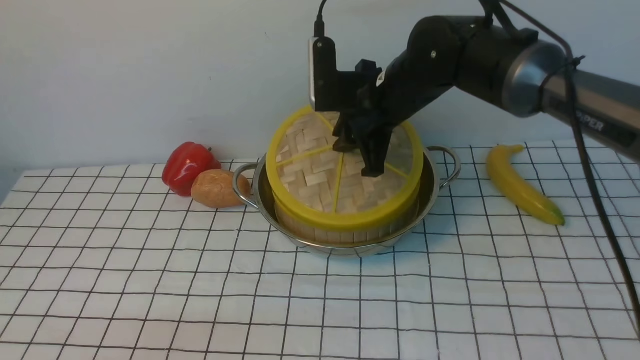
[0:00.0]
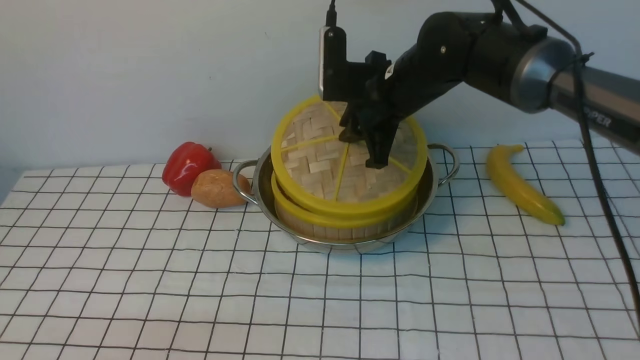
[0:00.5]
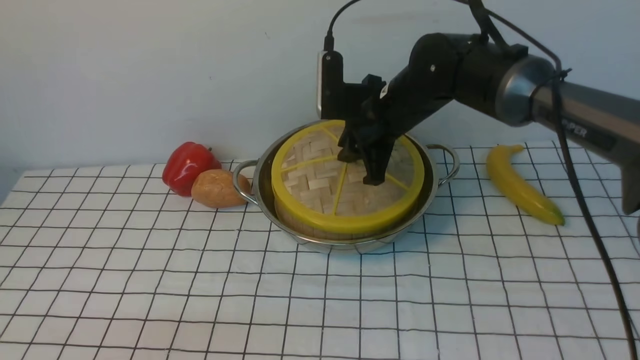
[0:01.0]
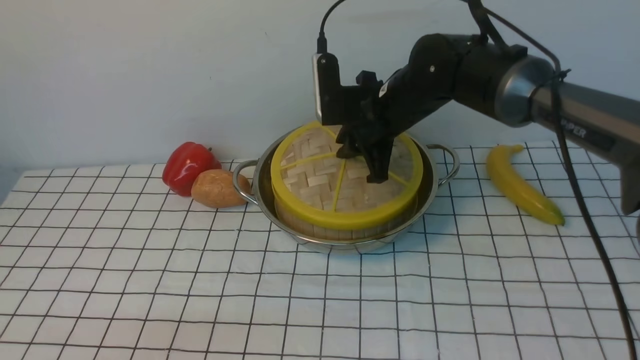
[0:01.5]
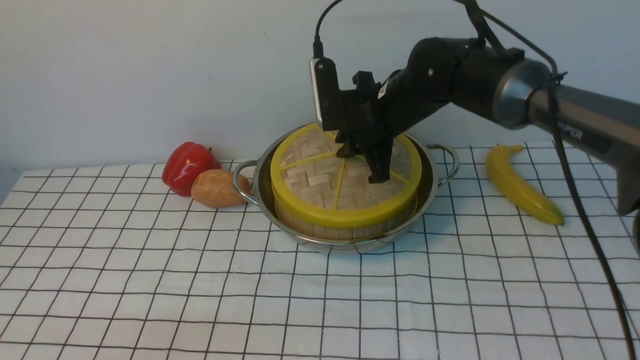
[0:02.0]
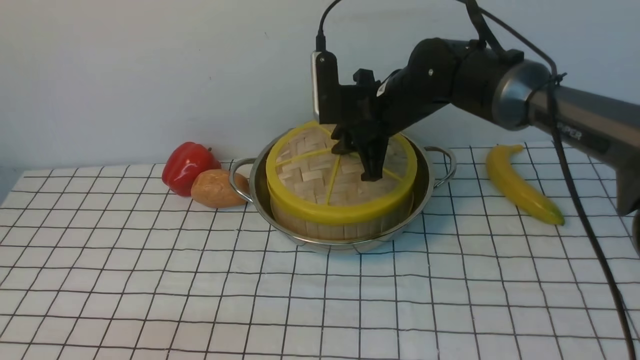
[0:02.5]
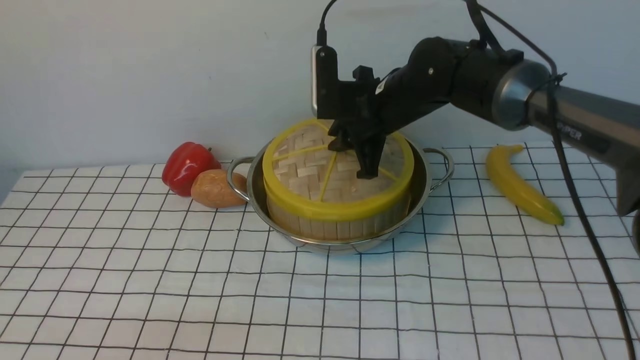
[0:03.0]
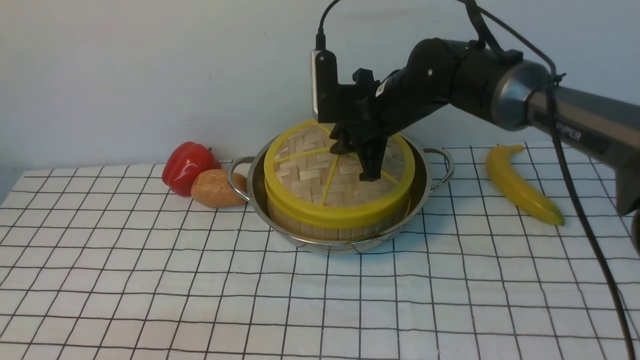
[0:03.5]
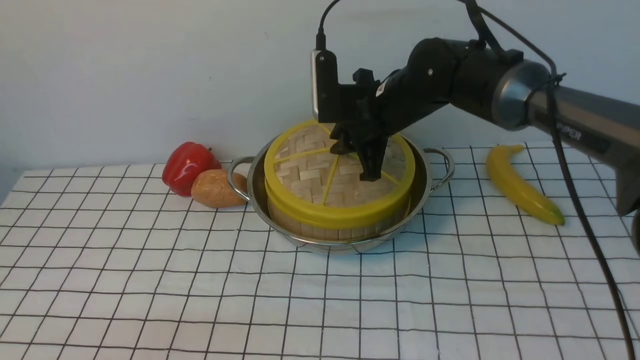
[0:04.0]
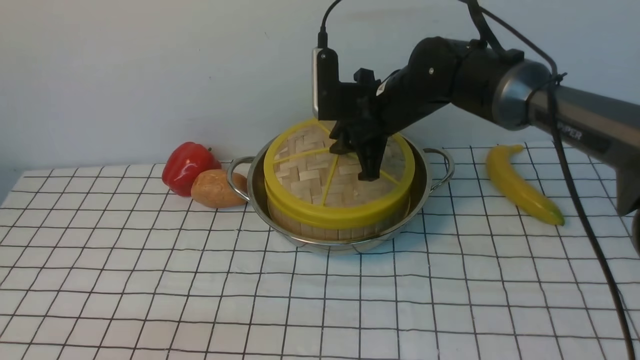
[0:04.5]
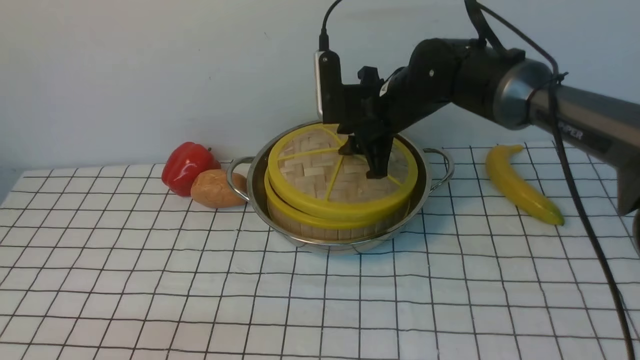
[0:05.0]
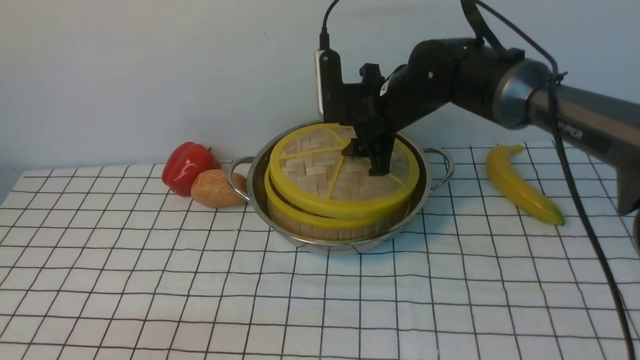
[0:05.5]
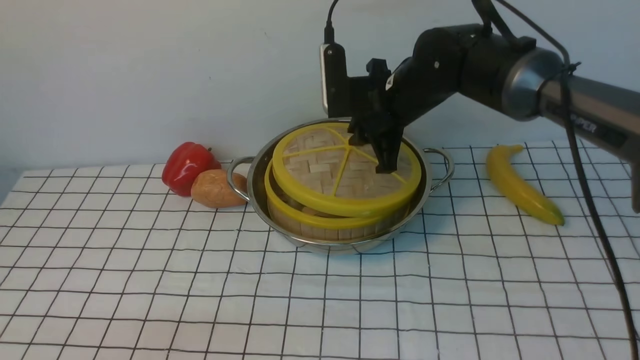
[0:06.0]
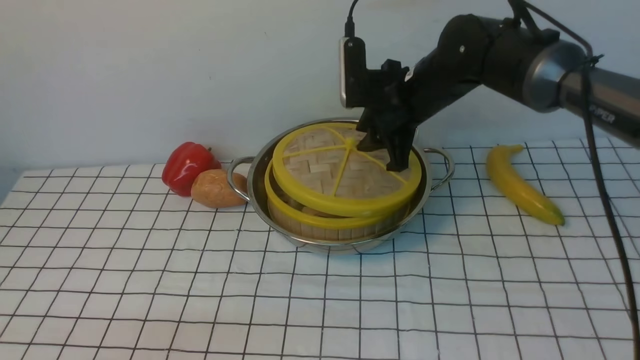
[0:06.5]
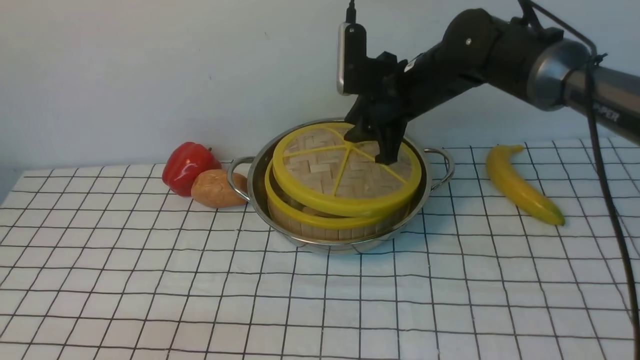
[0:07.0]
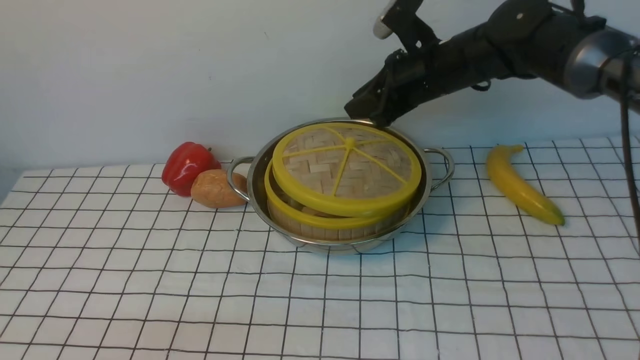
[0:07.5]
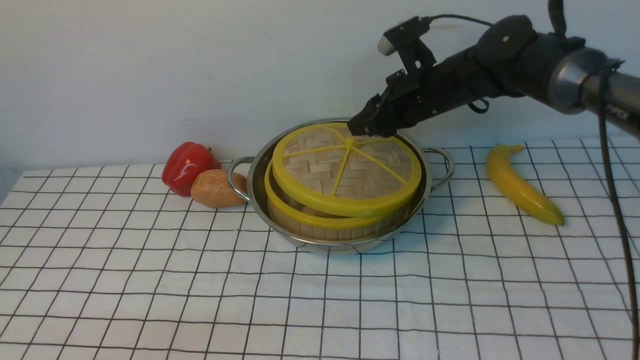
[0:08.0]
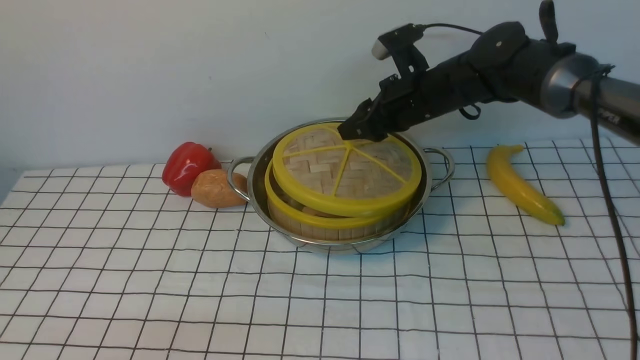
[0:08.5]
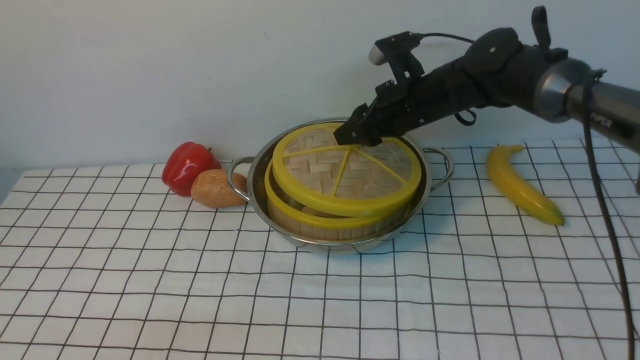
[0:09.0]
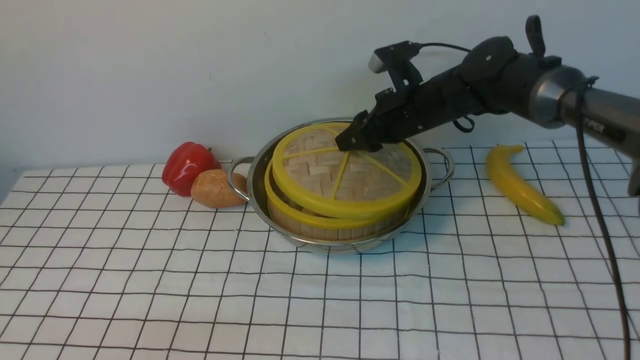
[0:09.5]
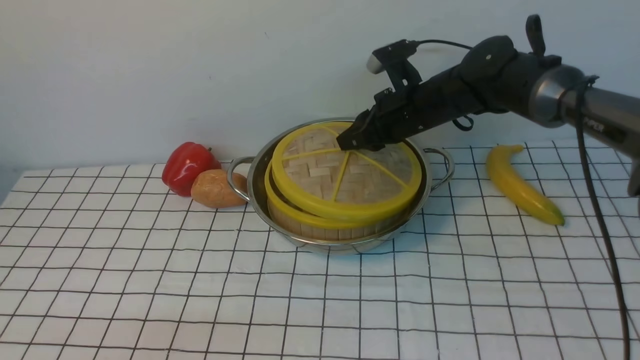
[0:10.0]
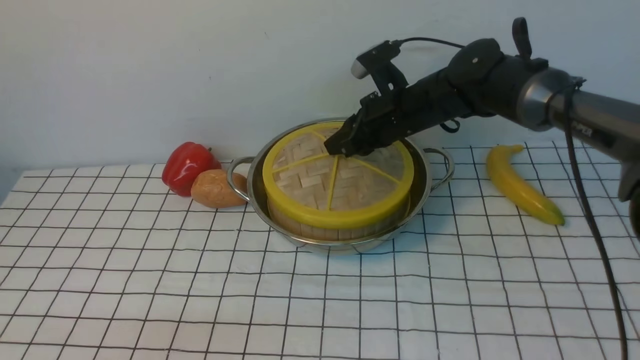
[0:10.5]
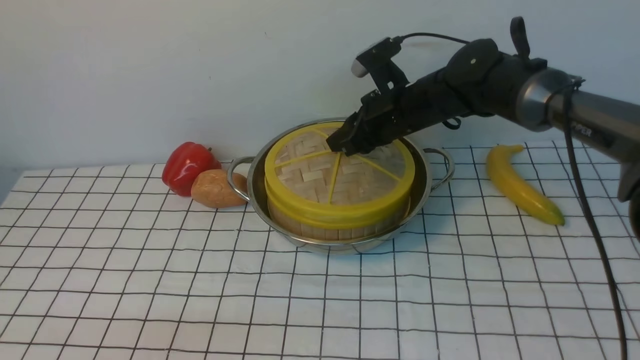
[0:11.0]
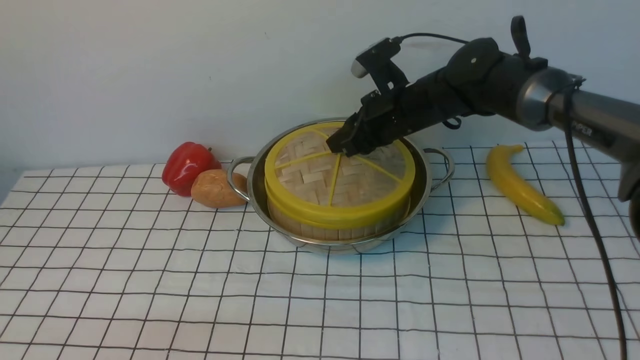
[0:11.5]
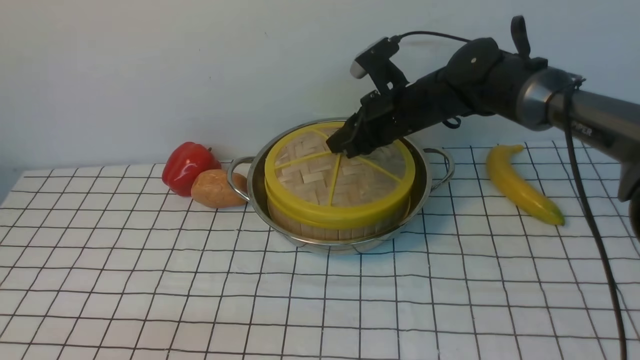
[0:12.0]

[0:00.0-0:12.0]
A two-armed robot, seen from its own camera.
Task of the whole recording: place the steamer in the pot on the white tablecloth, and put the lid on the steamer.
0:00.0 to 0:04.0: The grippers make only small movements.
0:04.0 to 0:06.0: The right gripper opens, then closes once more.
0:08.0 to 0:12.0: There are only small adjustments of the grippers.

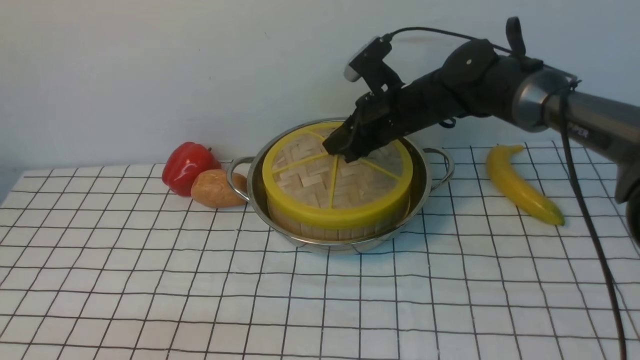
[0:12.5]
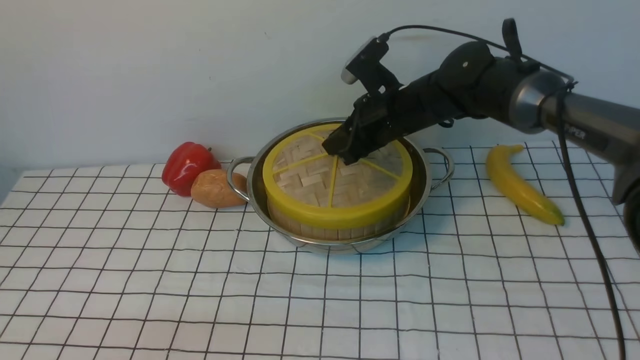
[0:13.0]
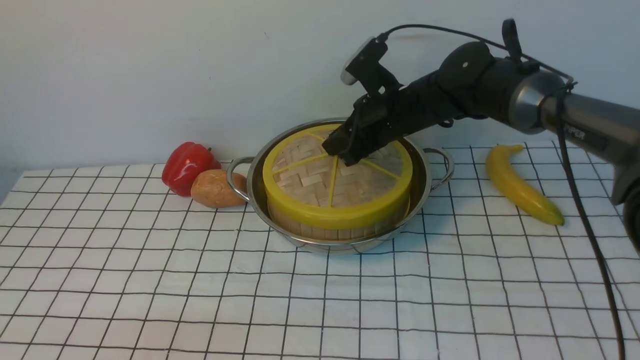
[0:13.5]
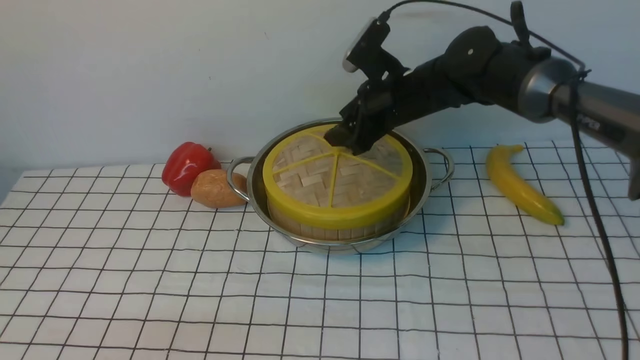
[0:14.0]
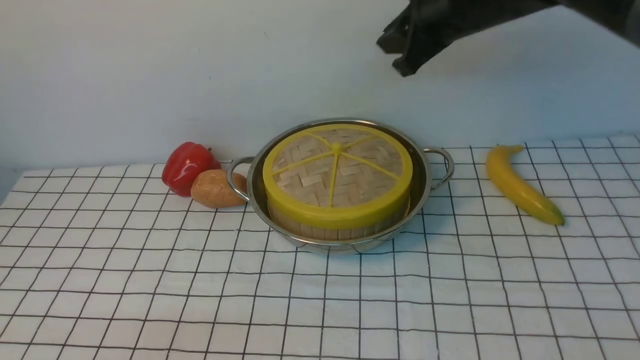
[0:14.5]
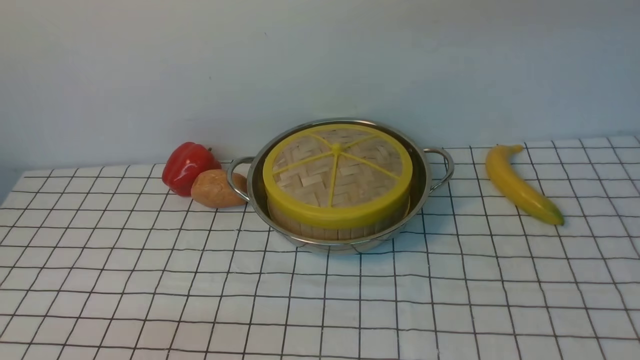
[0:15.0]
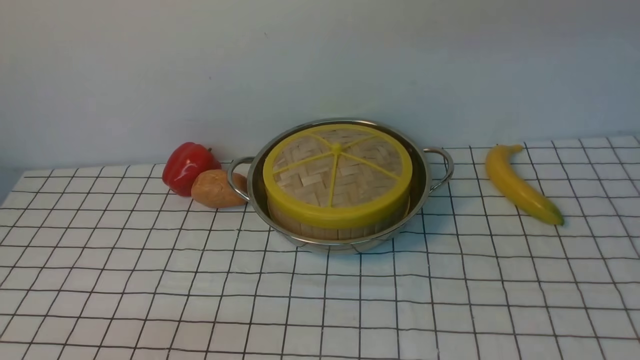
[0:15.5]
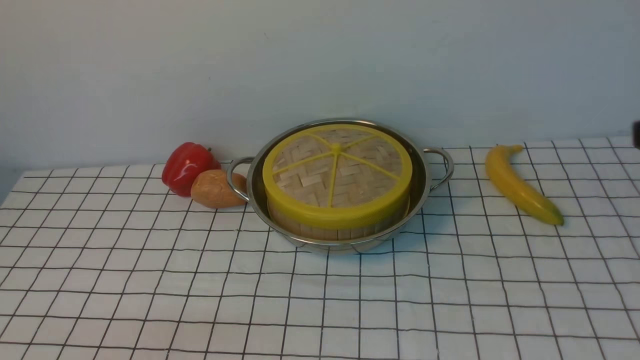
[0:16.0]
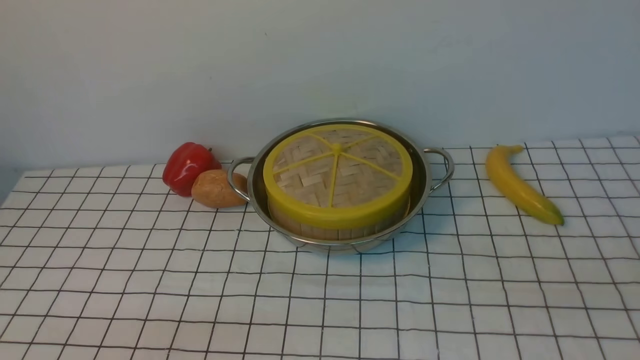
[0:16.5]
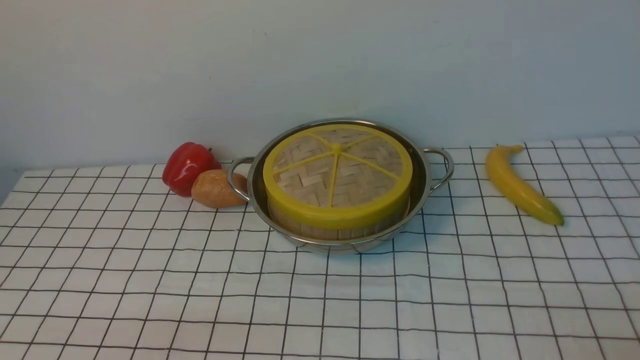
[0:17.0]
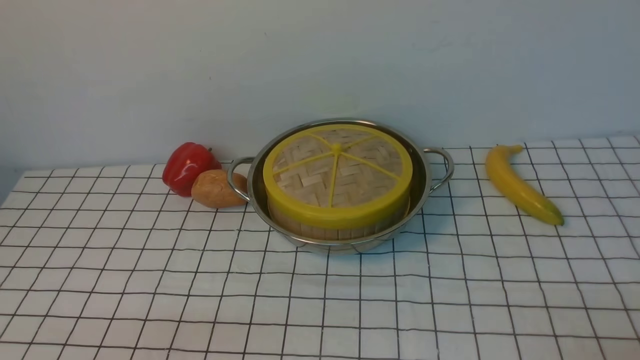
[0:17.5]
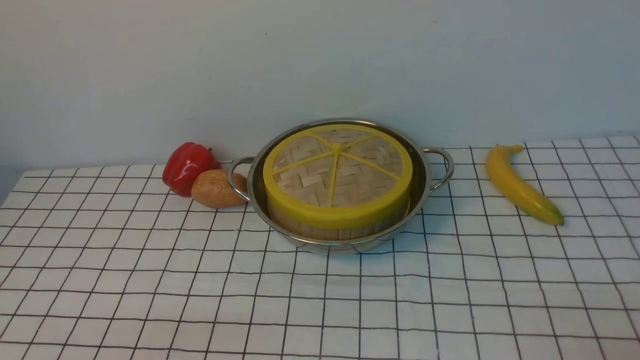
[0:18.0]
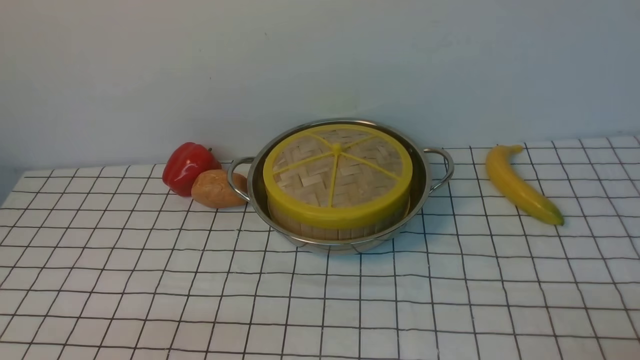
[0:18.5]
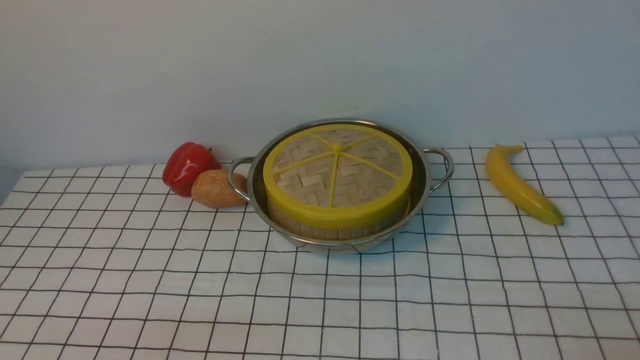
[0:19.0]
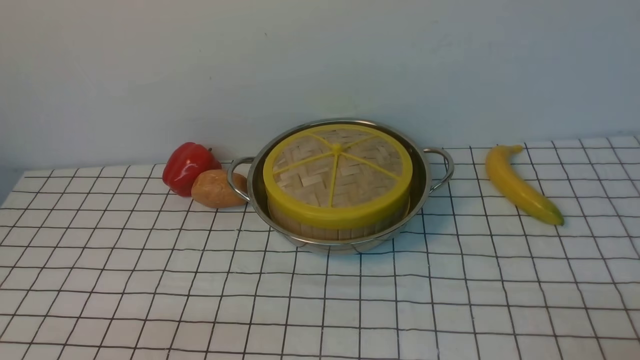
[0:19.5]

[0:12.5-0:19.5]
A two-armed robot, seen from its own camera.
Task of the whole recording: place the steamer in the pot on the white tablecloth, and put the lid on the steamer.
0:12.5 to 0:14.5: The right gripper travels upward by about 15 cm, and opens, then closes once more.
0:14.5 to 0:16.0: The right gripper moves backward and to the right, about 30 cm.
0:17.5 to 0:19.5: Neither gripper changes place.
